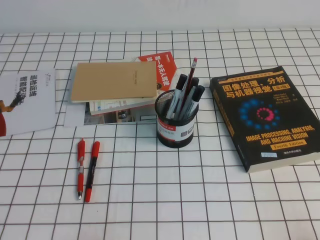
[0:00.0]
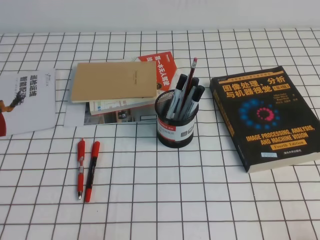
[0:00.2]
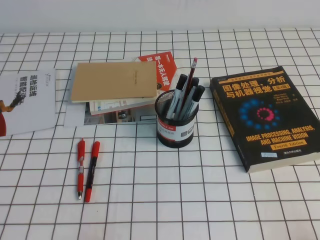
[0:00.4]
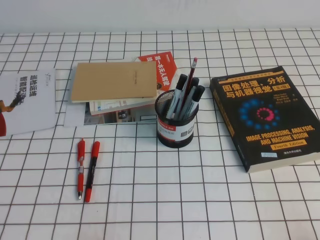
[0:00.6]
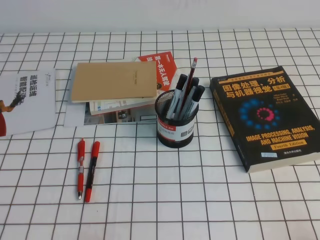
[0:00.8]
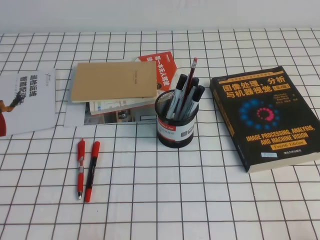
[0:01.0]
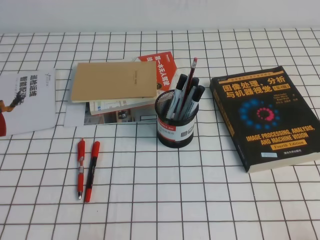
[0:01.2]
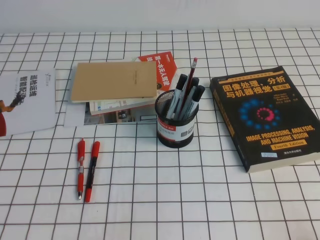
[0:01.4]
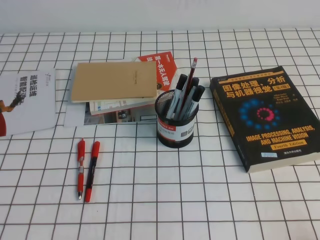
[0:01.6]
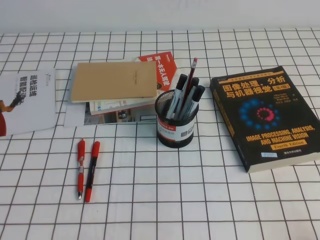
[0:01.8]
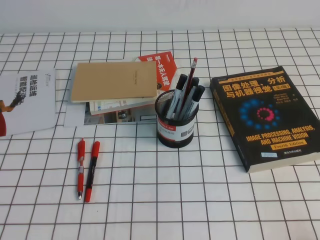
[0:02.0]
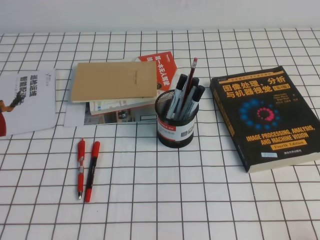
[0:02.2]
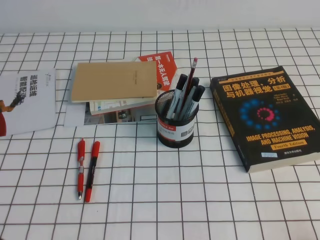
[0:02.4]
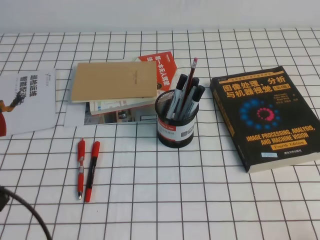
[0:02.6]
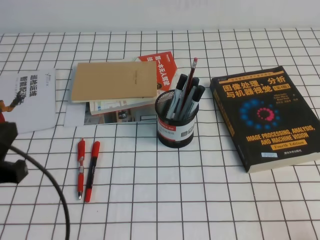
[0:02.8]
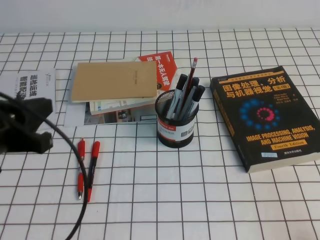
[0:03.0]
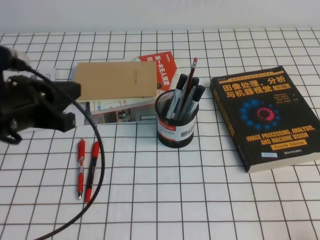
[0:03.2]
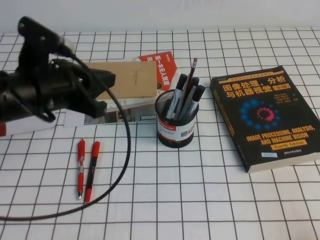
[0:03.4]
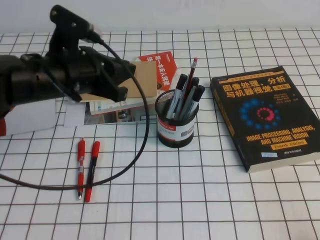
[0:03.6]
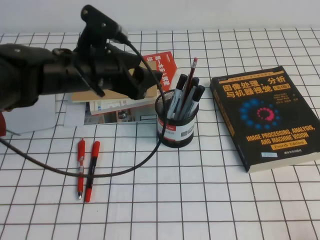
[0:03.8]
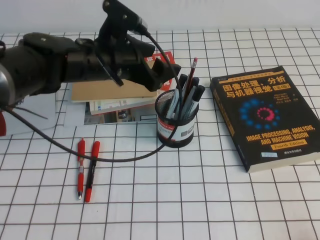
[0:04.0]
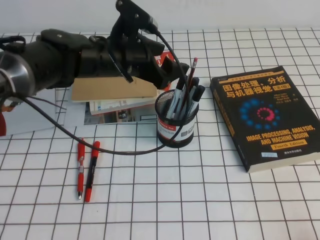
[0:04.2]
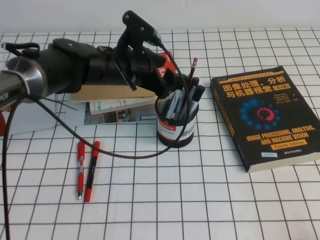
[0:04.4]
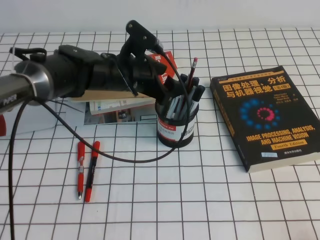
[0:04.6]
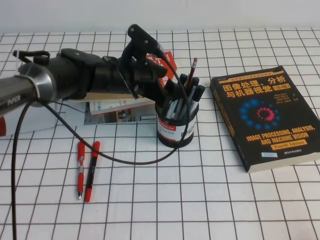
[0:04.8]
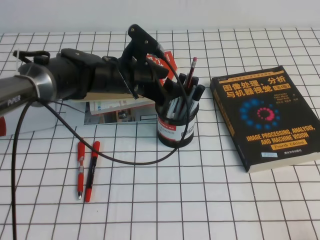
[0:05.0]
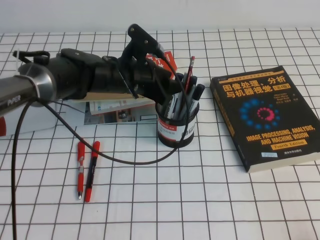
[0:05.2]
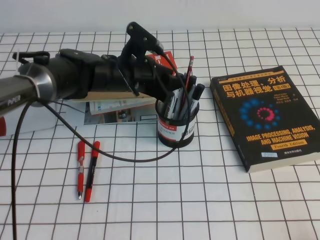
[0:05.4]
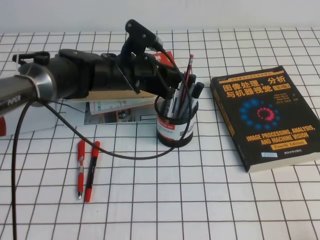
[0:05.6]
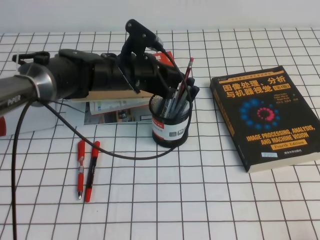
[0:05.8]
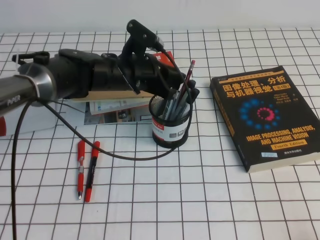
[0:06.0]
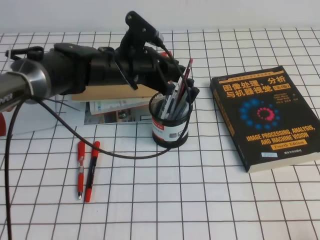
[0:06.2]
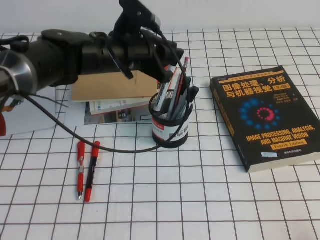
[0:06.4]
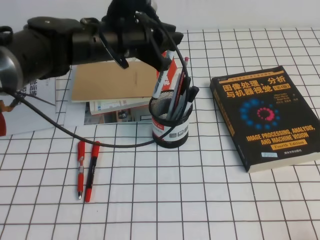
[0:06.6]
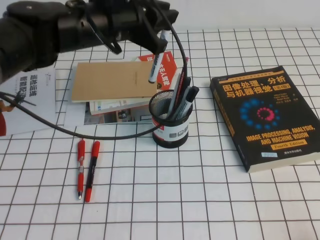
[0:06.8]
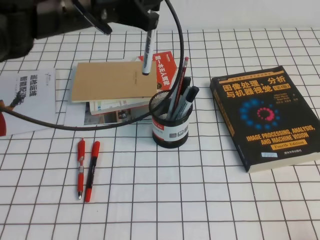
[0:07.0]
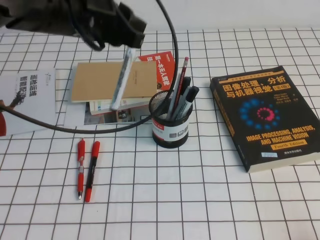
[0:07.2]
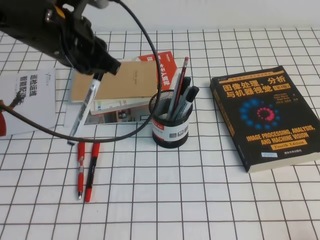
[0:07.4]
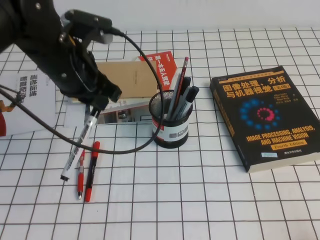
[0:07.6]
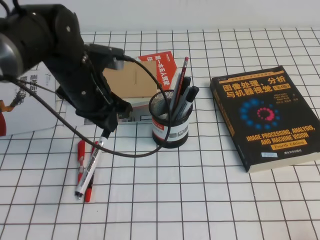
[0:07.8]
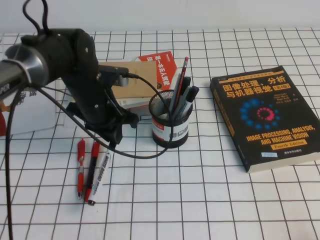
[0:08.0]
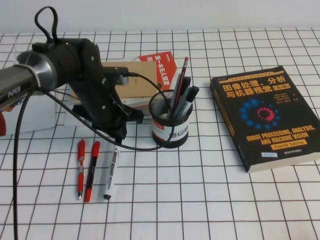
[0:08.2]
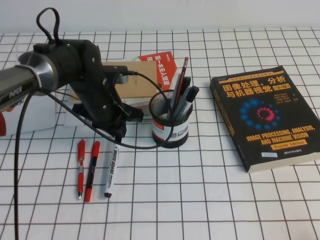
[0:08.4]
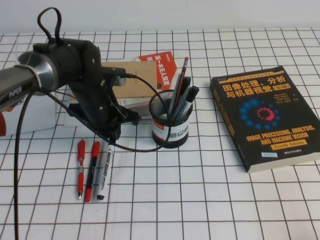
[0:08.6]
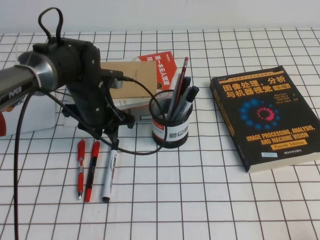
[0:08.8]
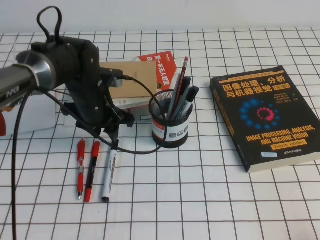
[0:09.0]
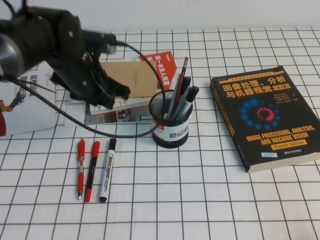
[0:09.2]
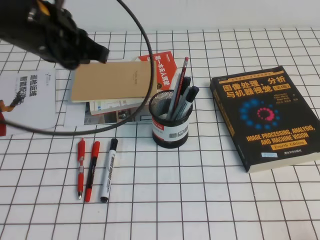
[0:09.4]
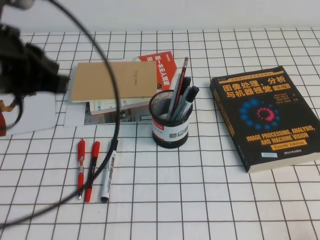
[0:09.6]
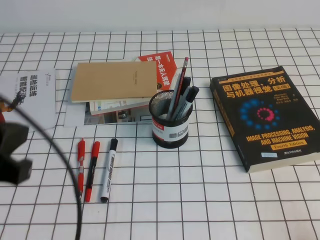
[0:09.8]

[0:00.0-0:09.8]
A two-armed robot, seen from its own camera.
0:01.4 to 0:02.8: The left gripper goes about 15 cm upward and forward.
0:02.8 to 0:04.2: The left gripper travels forward and to the right by approximately 30 cm, and opens its fingers.
0:04.2 to 0:05.6: The left gripper ends up approximately 5 cm from where it was, and closes up.
0:05.6 to 0:07.0: The left gripper heads upward, covering approximately 15 cm.
0:07.0 to 0:08.4: The left gripper travels downward by some 15 cm.
0:08.4 to 0:09.8: The left gripper travels backward, upward and to the left by approximately 30 cm.

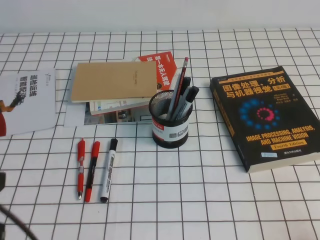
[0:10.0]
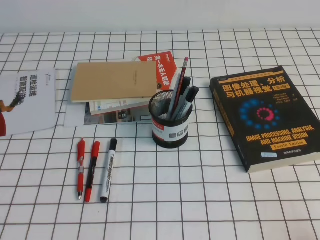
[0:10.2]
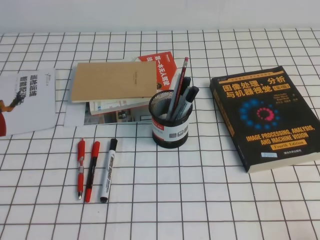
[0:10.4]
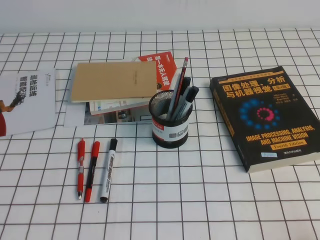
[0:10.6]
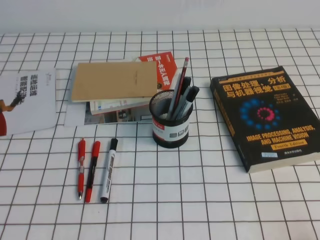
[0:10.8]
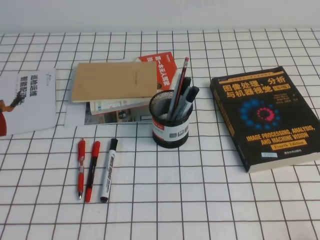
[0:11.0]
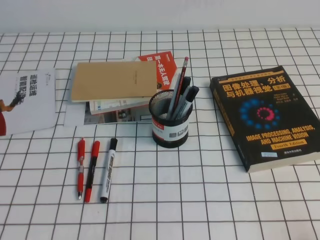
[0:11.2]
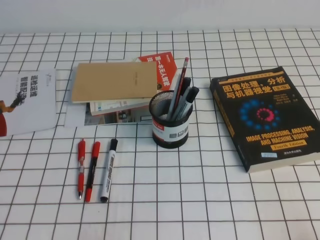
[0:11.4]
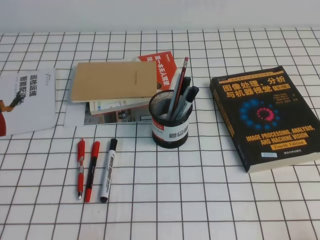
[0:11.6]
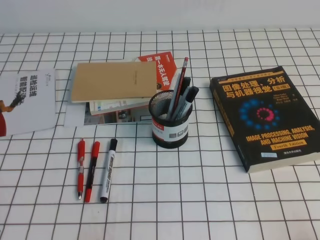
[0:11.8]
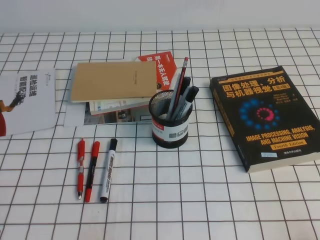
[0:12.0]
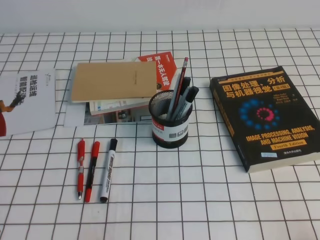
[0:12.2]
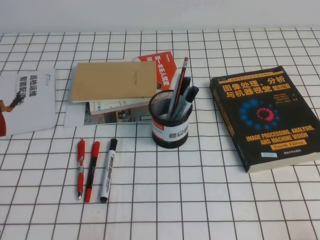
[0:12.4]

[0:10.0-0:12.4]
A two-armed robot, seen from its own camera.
Step, 0:10.0 to 0:12.4: Pick up the pen from the pen holder.
0:10.0 to 0:11.2: The left gripper travels downward by approximately 15 cm.
